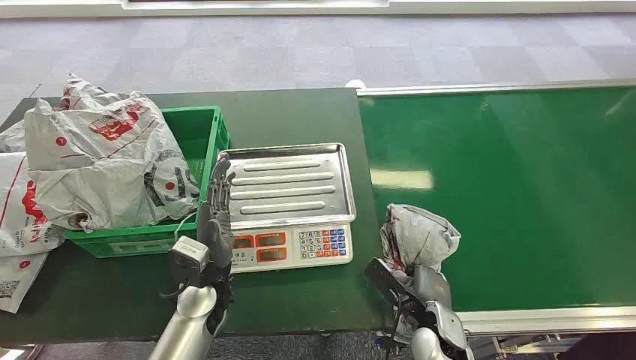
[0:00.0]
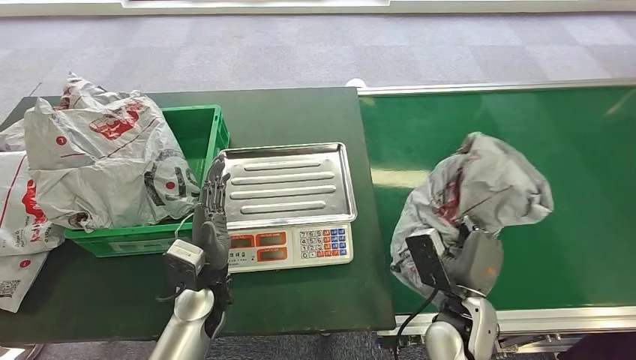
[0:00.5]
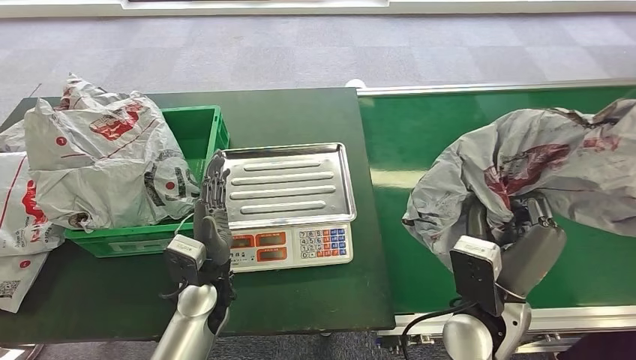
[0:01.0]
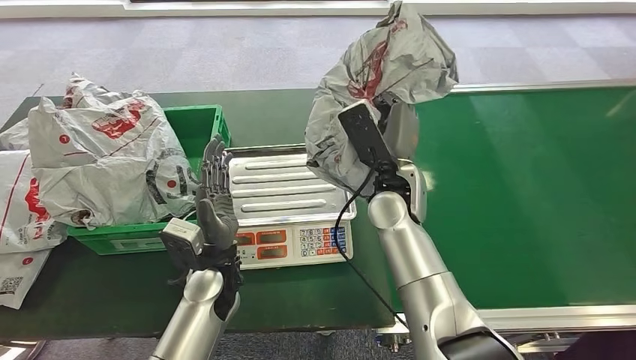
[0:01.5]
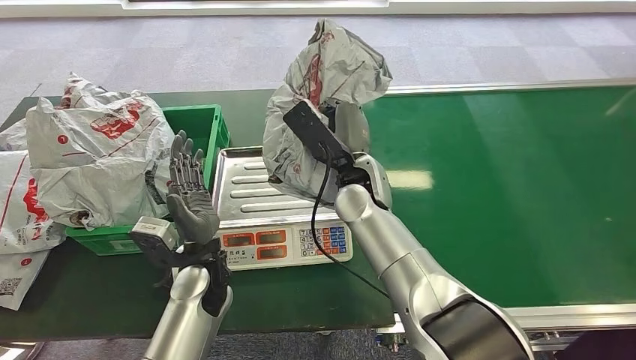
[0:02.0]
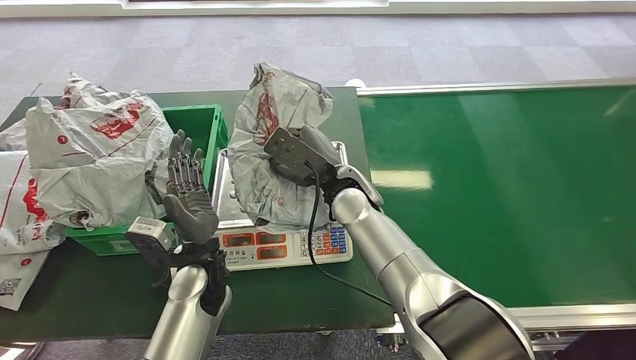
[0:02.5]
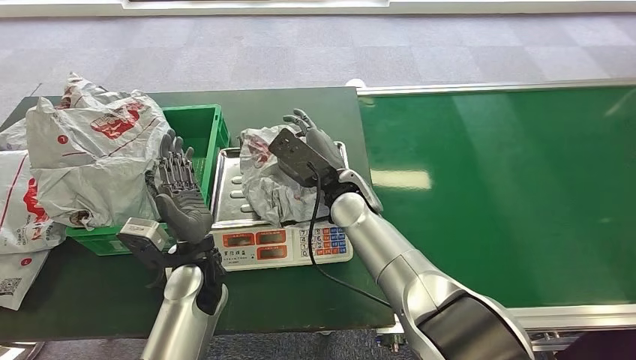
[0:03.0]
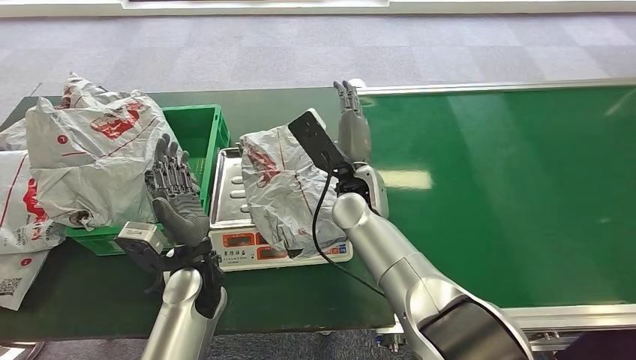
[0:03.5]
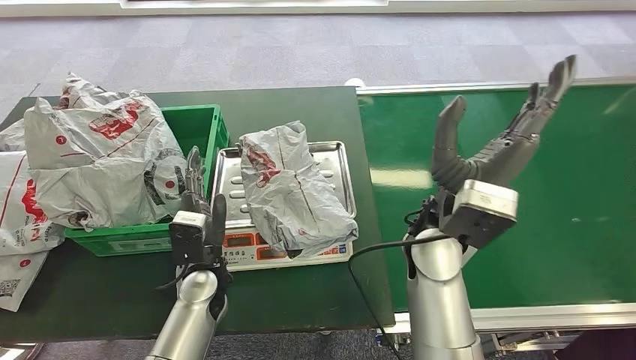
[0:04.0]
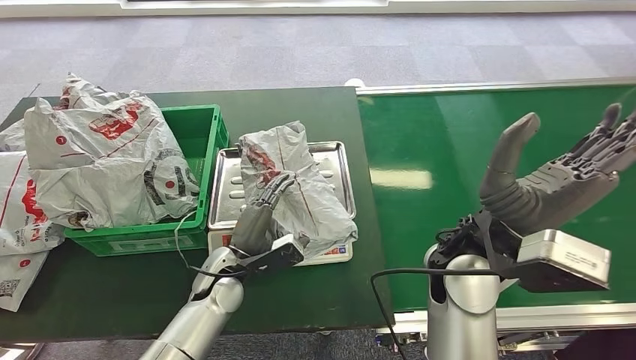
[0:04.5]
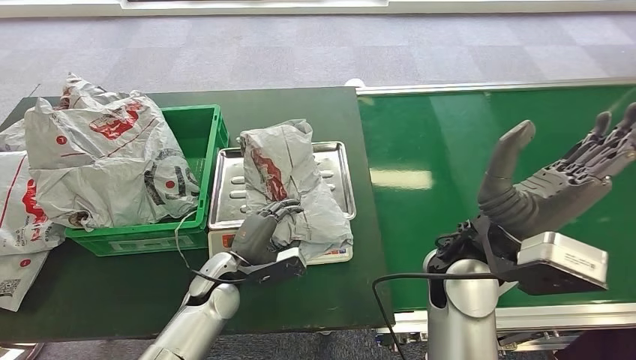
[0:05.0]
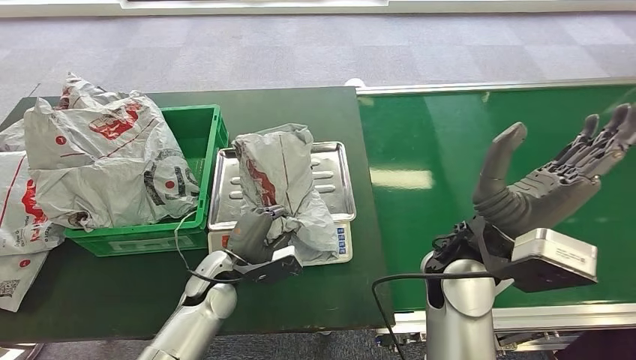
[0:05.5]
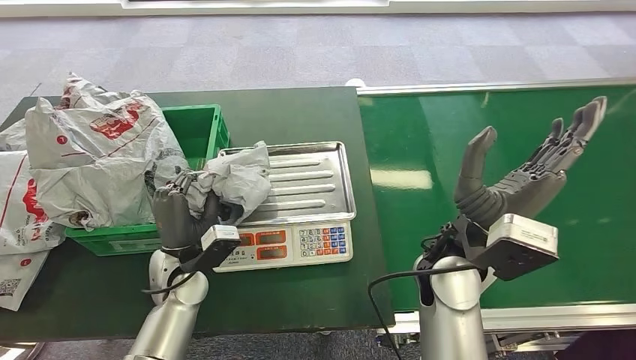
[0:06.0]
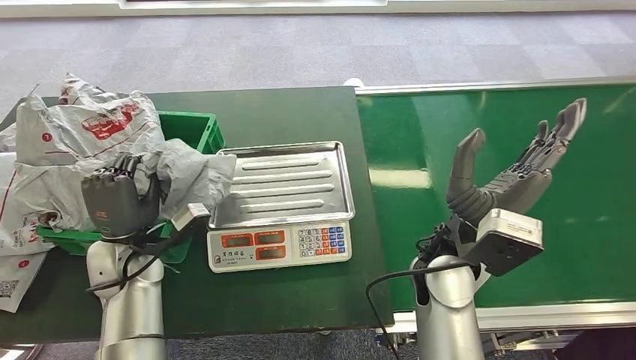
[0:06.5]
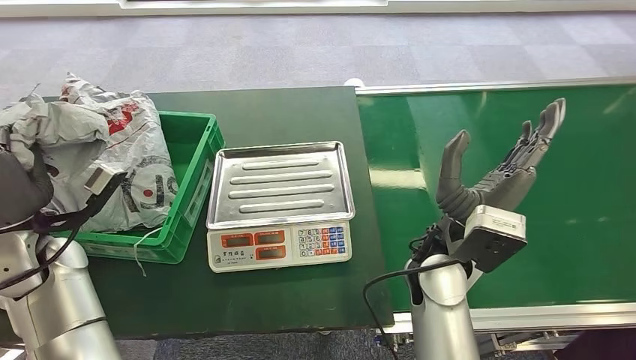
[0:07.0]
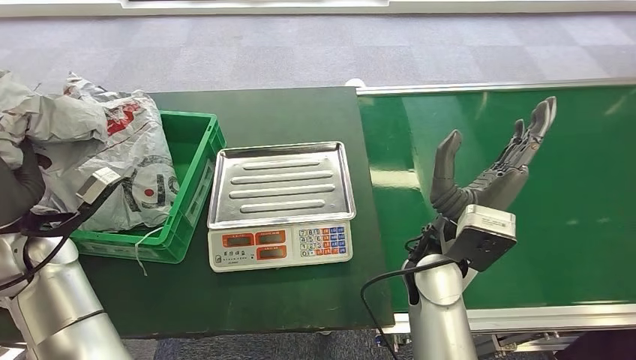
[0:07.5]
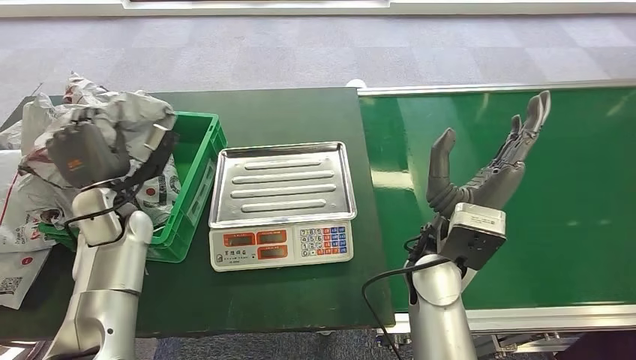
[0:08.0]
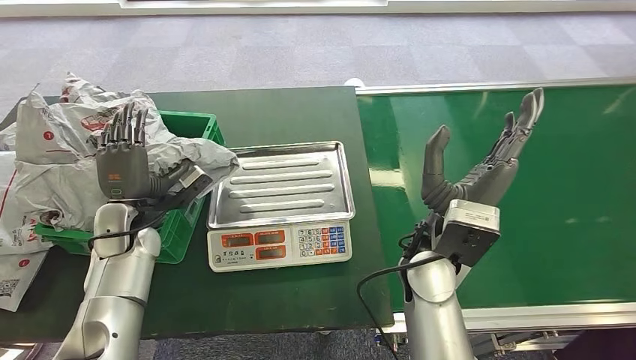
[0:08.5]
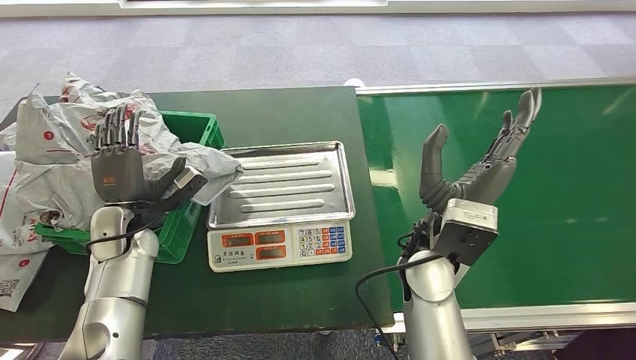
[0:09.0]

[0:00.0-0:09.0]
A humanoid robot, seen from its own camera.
Task of the whole recording: Weigh the package on the weighing device and place it in the left basket.
Step, 0:00.0 to 0:01.5: Pick up the package from the conveyor belt.
Step, 0:02.0 to 0:04.0: Place the package onto the inbound machine.
Step, 0:04.5 to 0:06.5: Pick up the package from the inbound machine.
Step, 0:07.0 to 0:09.0: Place the package into the parcel locker.

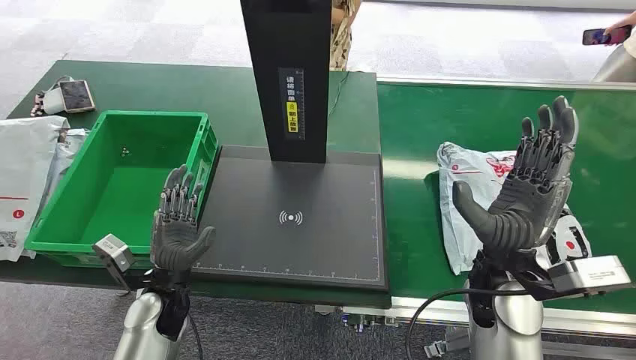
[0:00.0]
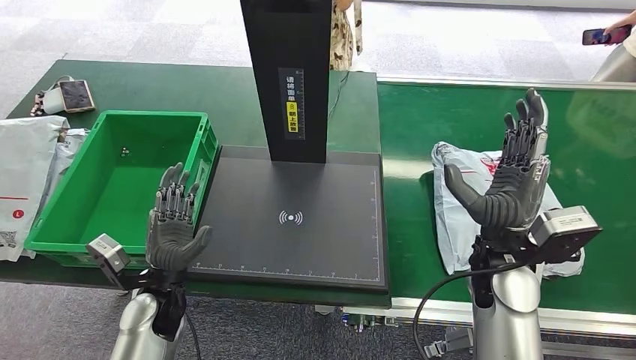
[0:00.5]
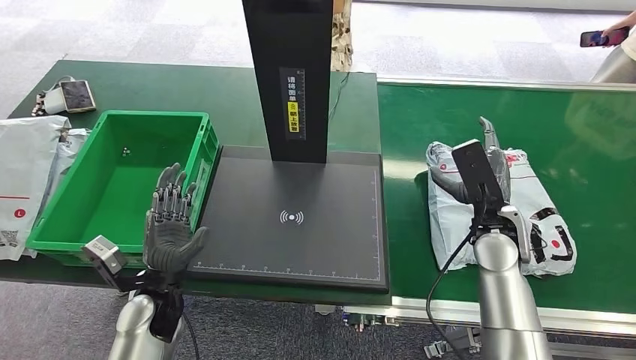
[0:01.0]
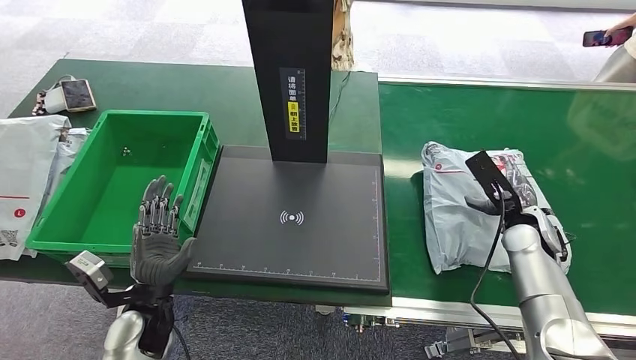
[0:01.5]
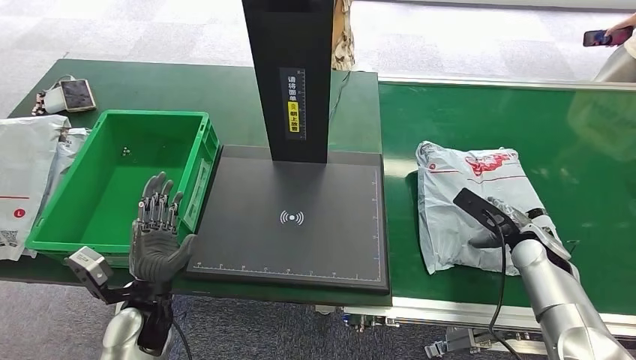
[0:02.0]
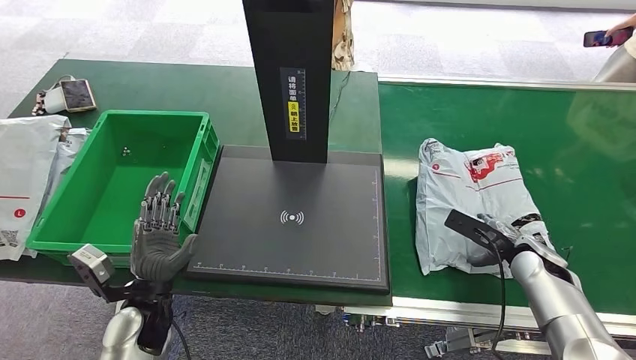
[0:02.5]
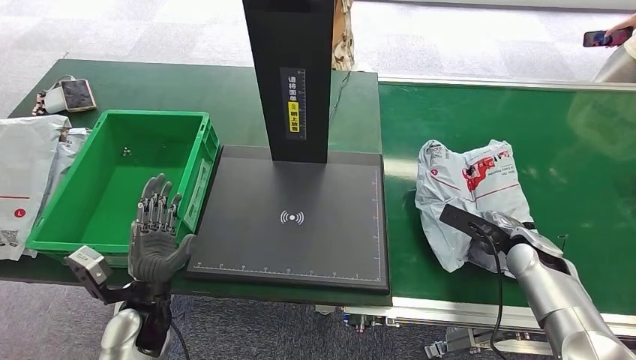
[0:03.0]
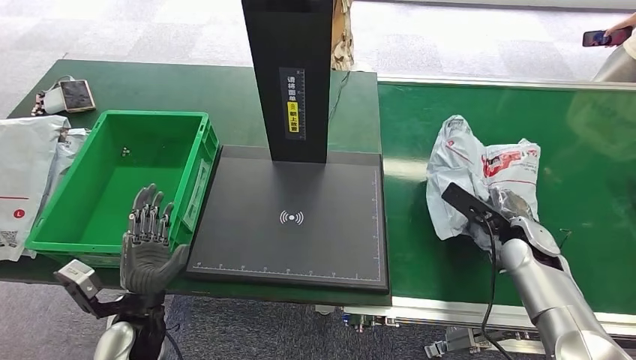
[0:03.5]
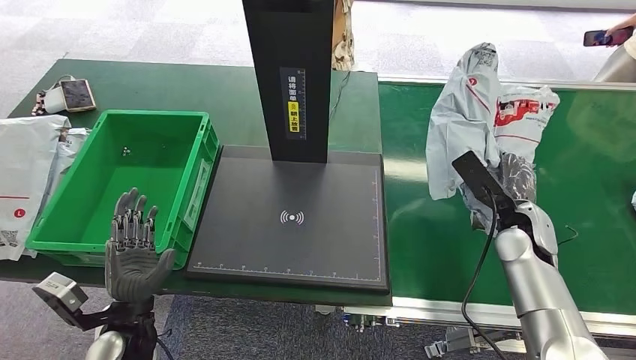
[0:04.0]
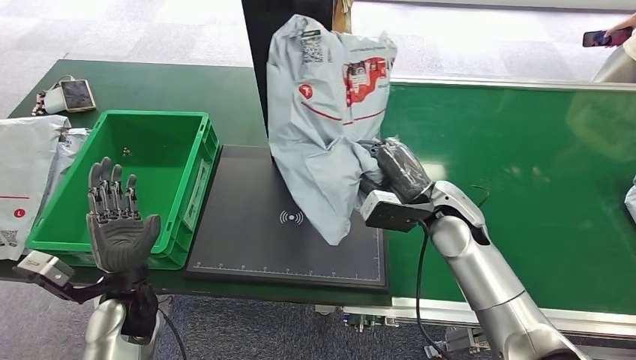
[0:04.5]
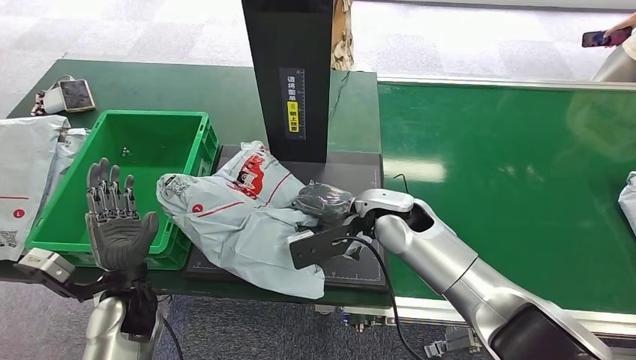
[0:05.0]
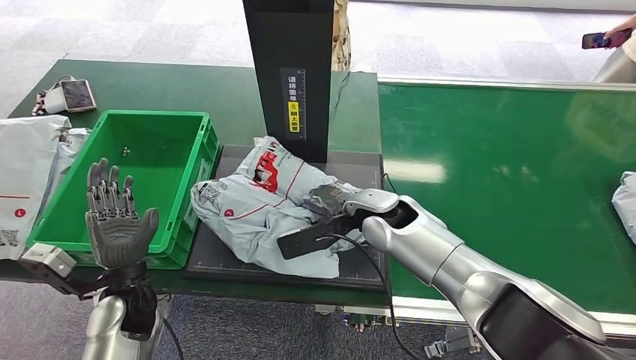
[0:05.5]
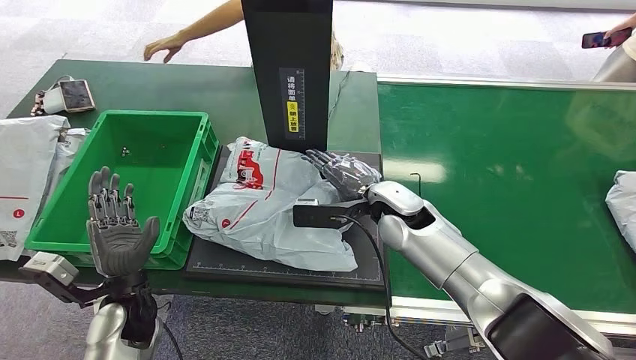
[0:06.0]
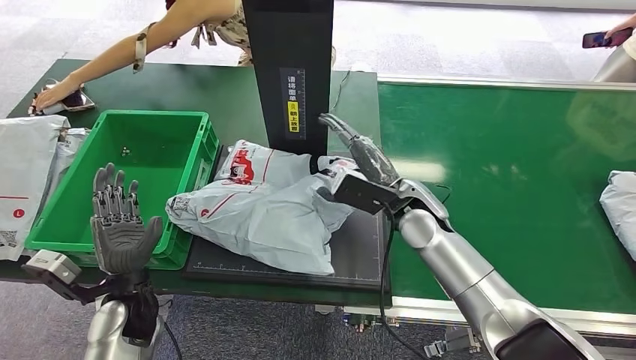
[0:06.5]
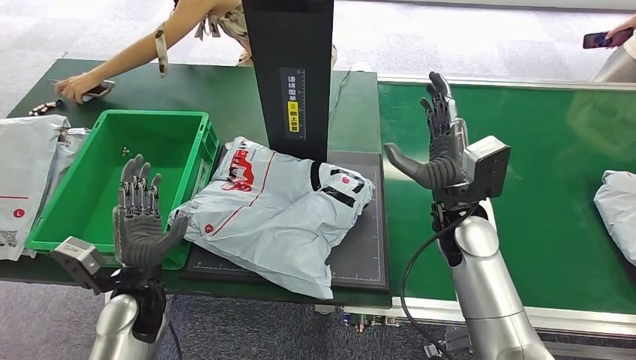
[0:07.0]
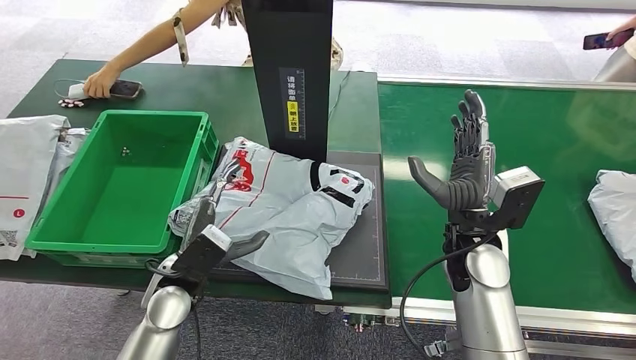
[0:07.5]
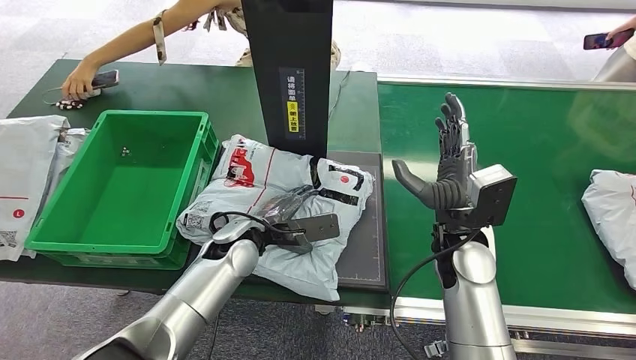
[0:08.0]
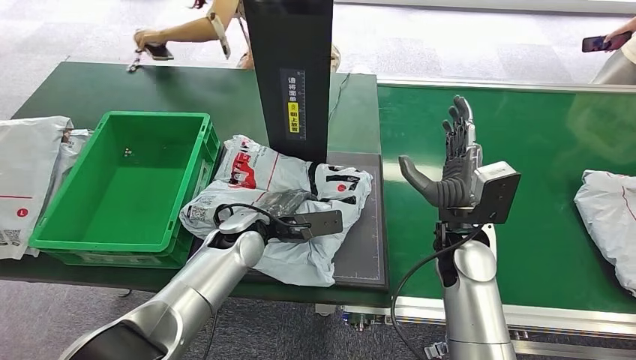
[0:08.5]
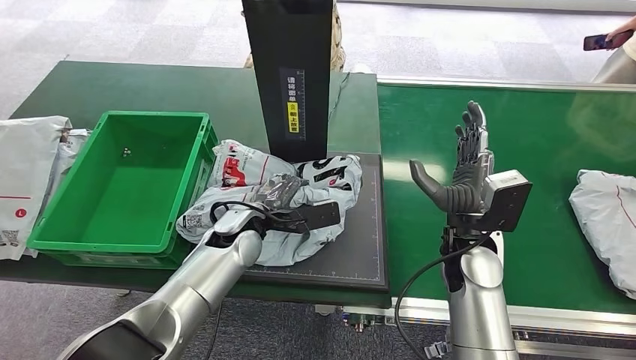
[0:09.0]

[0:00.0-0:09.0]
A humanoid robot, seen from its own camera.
Task of the whole recording: Weigh the package on the weighing device and place it in the left basket.
Step, 0:00.0 to 0:04.5: Pick up the package from the conveyor belt.
Step, 0:05.0 to 0:07.0: Place the package onto the inbound machine.

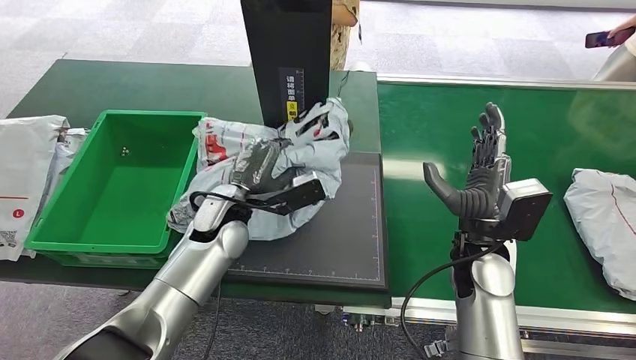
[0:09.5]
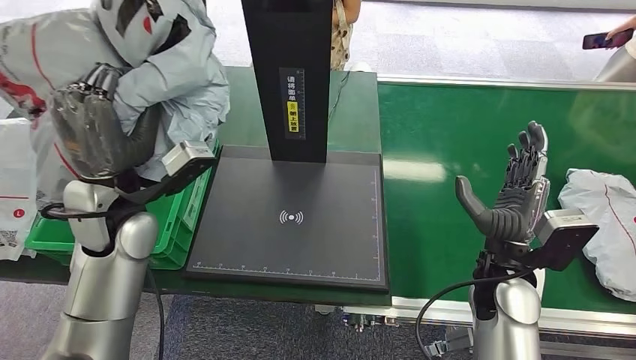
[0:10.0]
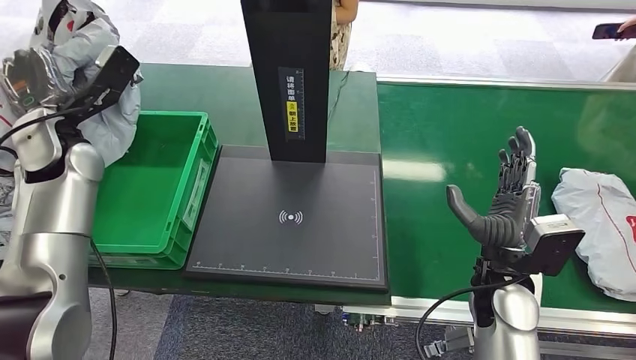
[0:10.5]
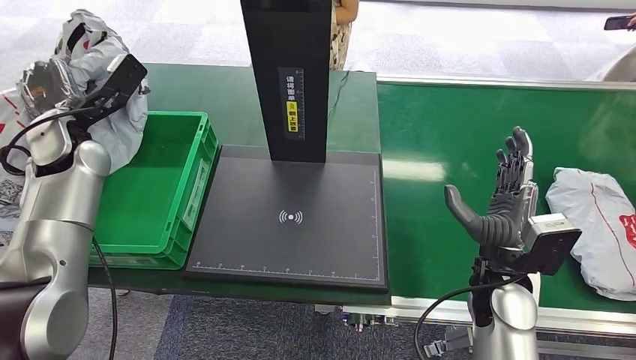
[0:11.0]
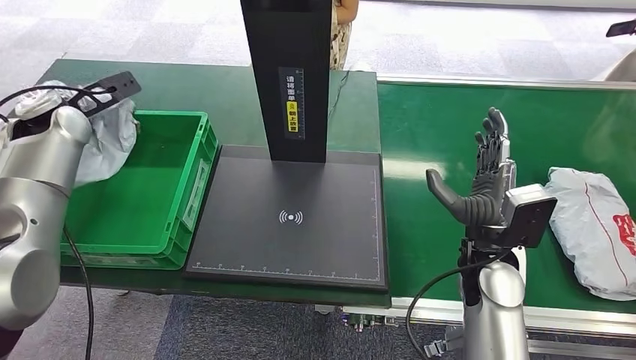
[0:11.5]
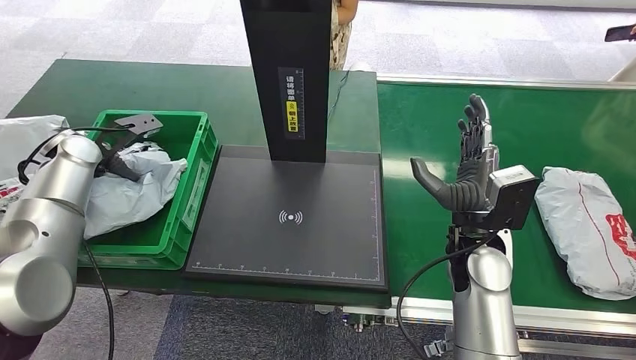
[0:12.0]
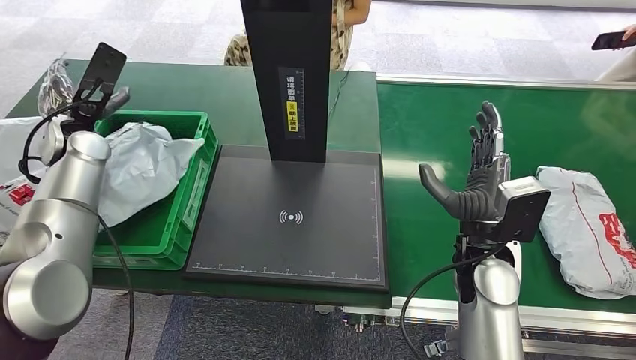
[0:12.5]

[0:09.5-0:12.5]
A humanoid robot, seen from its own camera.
Task of the whole recording: Weigh the package on the weighing device and place it in the left basket.
Step, 0:10.0 to 0:12.5: Place the package into the parcel locker.
